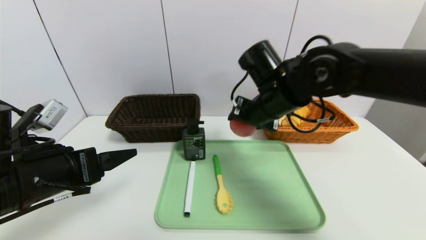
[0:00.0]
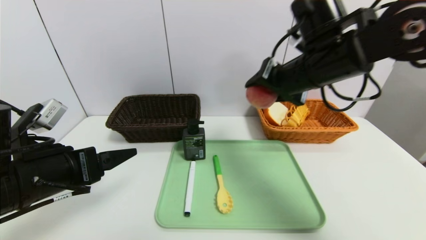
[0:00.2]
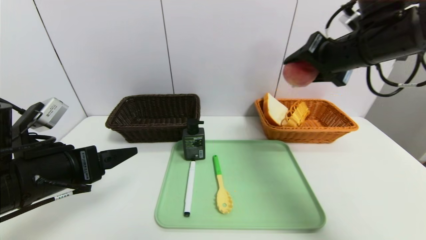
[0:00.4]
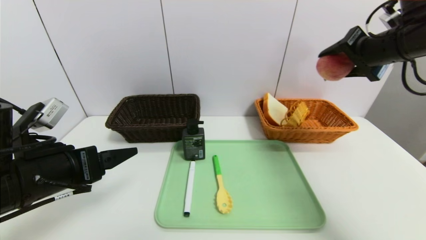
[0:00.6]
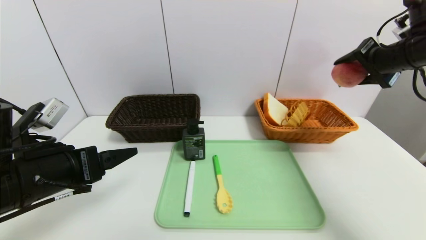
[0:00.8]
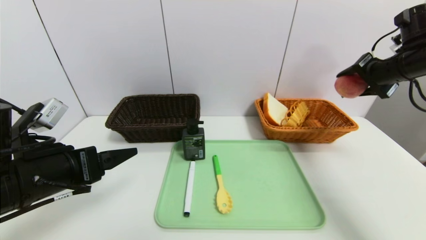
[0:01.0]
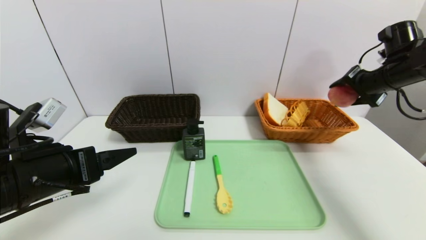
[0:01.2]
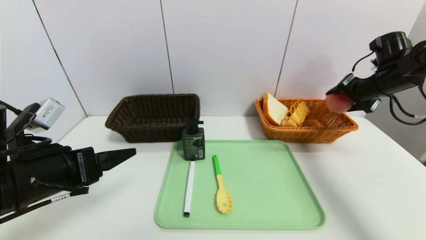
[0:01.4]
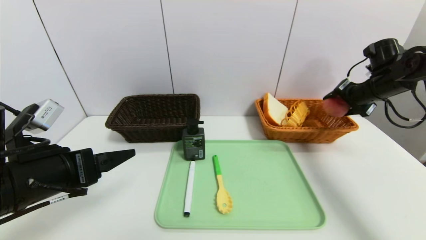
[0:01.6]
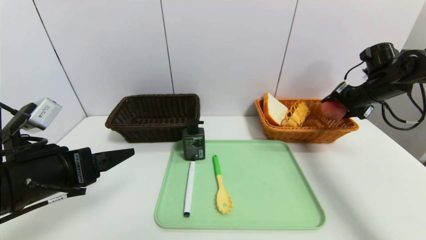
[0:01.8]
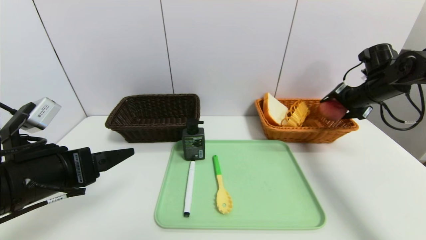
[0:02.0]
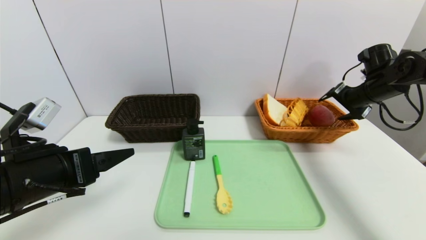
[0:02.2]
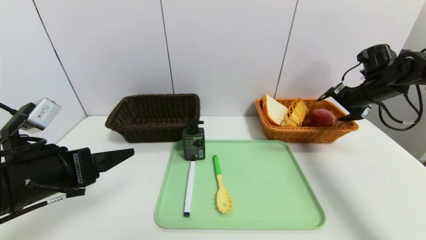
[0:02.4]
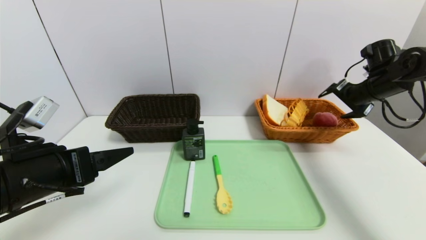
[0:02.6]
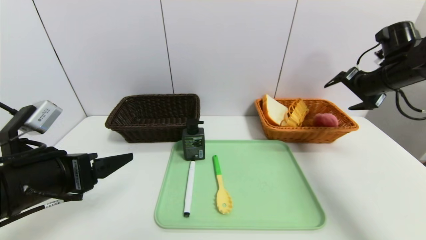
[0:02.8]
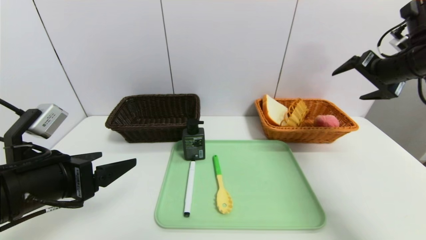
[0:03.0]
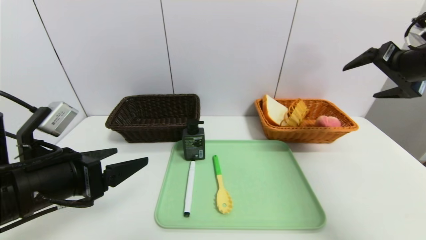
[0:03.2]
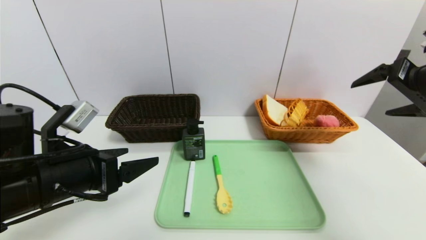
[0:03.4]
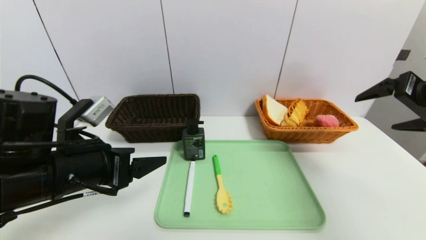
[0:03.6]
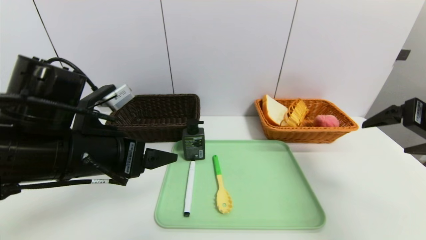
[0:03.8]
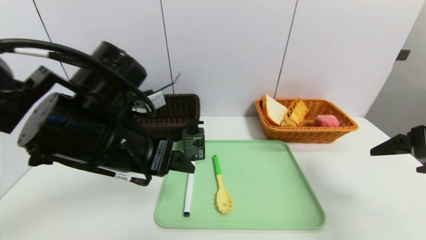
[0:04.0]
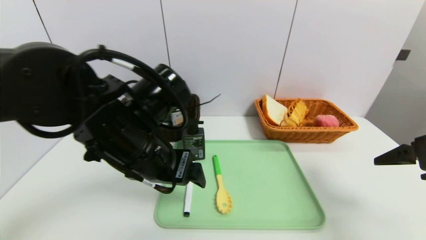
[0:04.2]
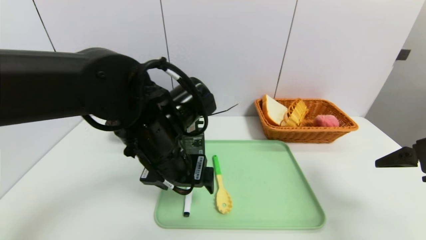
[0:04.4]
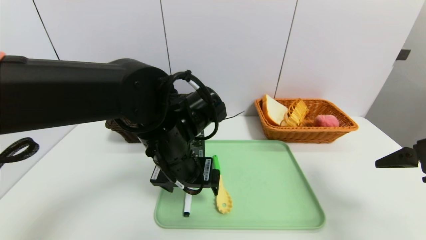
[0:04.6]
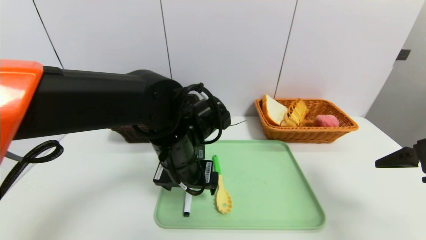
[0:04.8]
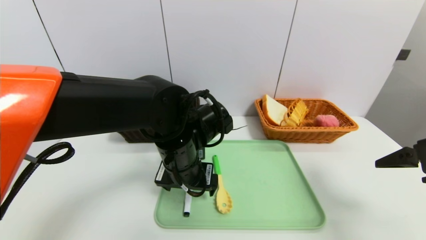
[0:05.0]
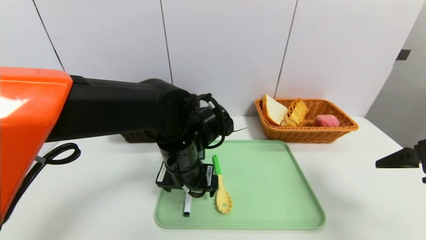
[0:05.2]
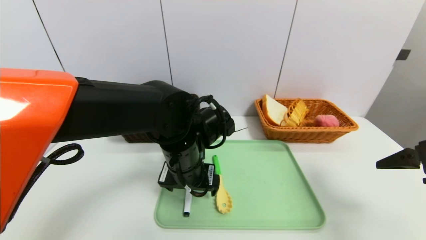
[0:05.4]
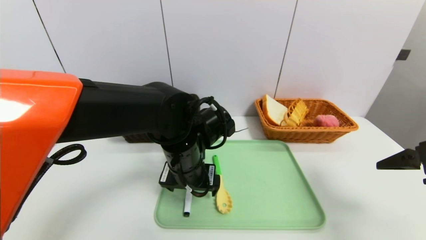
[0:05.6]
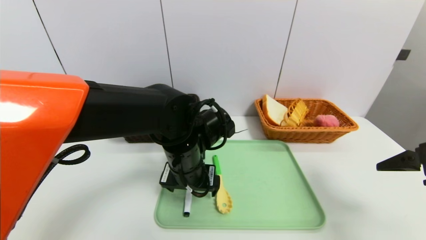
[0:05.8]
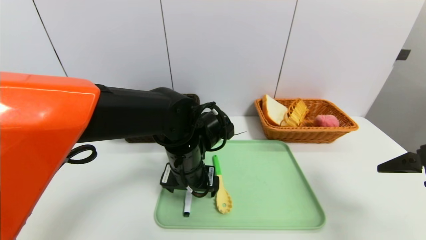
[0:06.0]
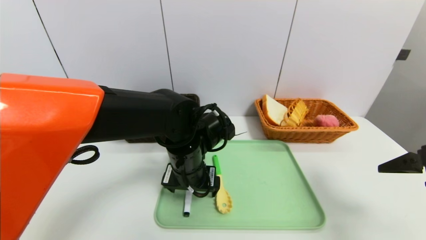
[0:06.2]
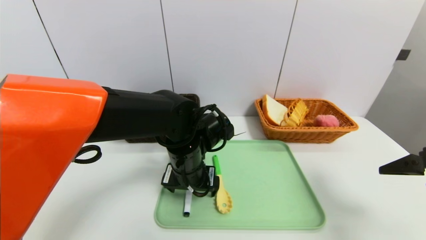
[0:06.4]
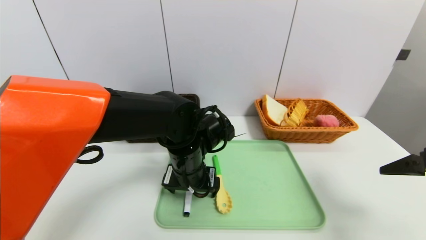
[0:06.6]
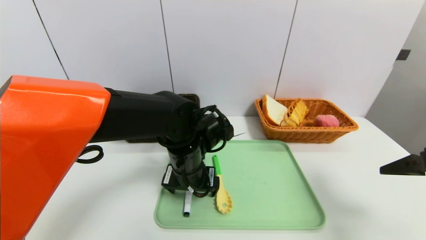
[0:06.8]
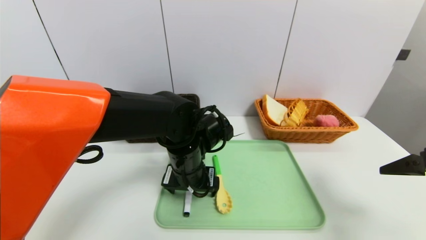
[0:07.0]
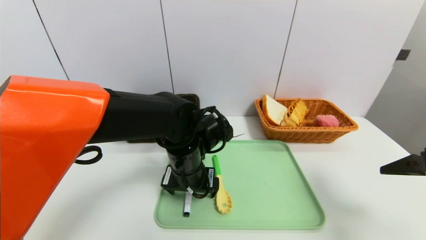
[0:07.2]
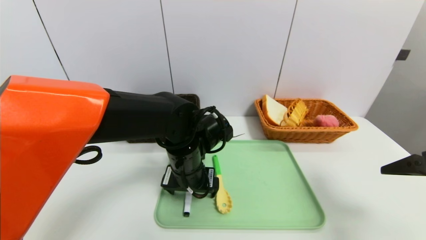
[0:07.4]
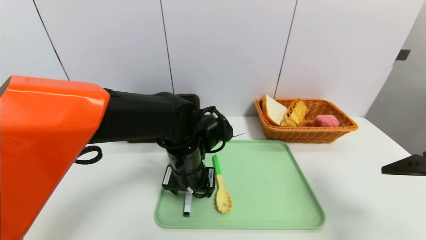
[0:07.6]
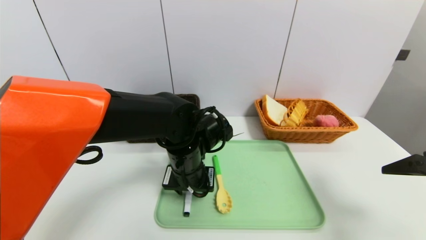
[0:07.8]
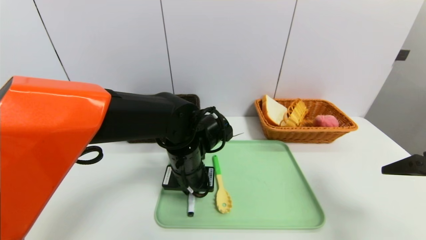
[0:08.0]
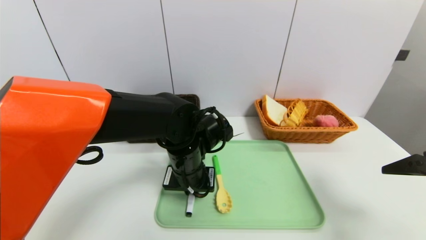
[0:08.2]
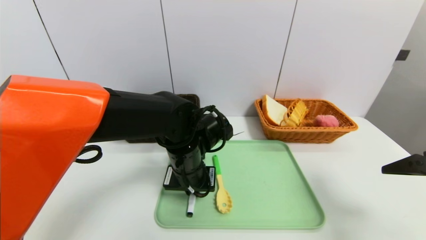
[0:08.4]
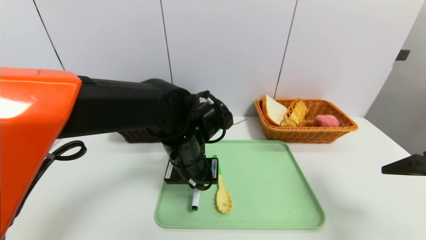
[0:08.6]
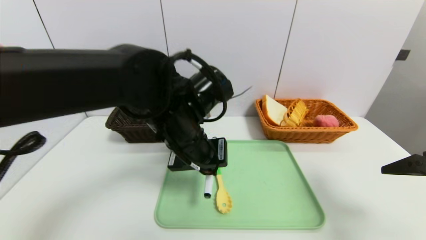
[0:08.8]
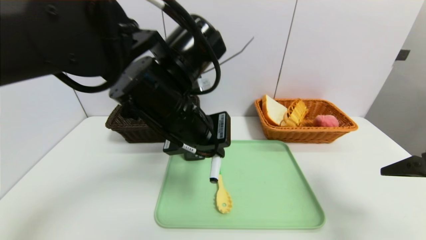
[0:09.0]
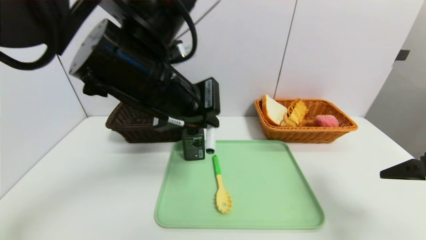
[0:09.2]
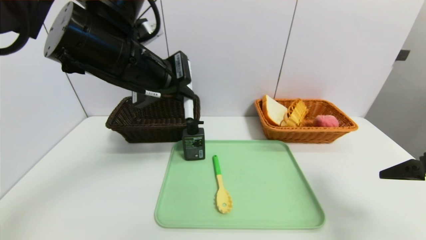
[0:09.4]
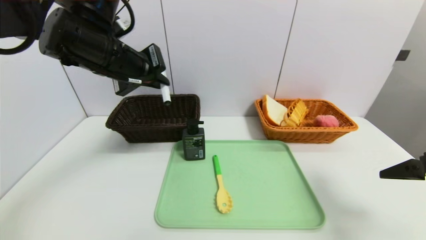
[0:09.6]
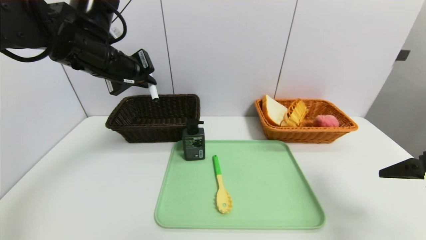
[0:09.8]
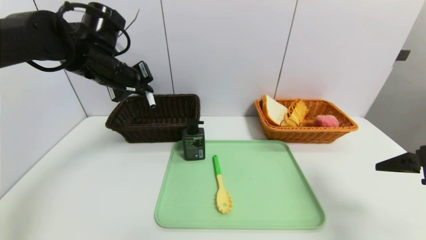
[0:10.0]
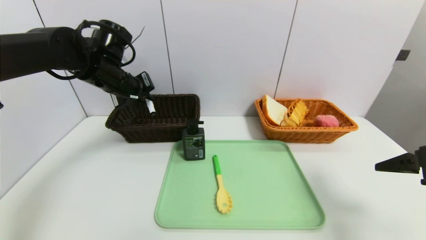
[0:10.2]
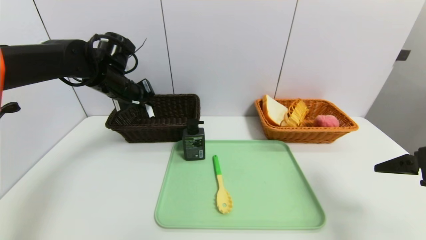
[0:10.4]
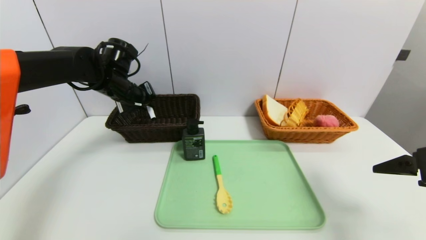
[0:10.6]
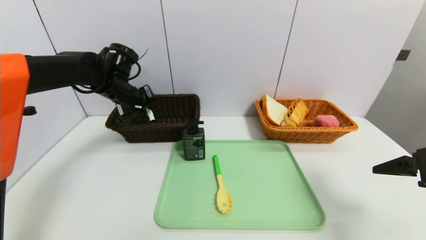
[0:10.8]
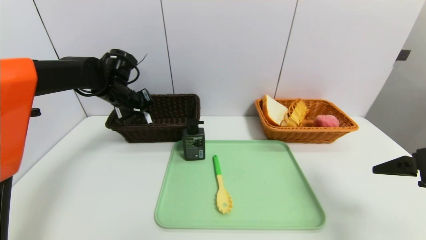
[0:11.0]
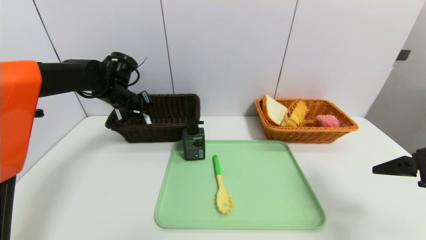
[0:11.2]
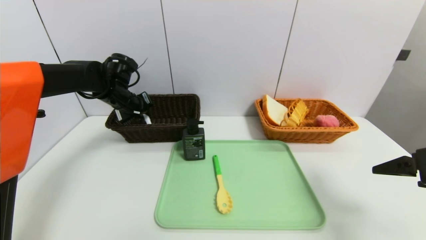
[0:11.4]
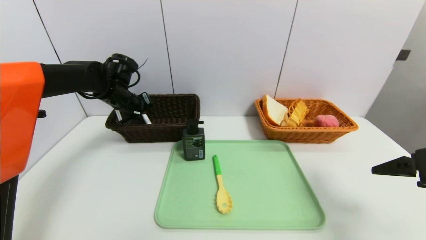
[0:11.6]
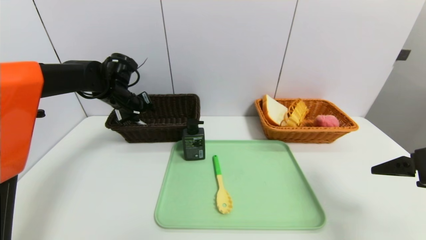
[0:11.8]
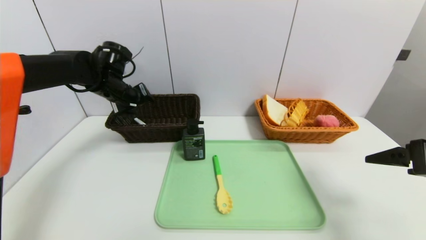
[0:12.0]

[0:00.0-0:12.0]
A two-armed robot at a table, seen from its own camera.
Task of the whole recording: place the food in the right basket with the right gripper, and place the non food items in the left basket with the left gripper.
Step, 0:00.0 to 0:02.6: Grasp the peach and put it in the right basket.
Step, 0:02.8 to 0:11.8: Grasp the black marker and put it in the left basket.
0:00.0 to 0:01.6: The right gripper heads to the right, covering about 30 cm.
0:01.6 to 0:03.0: The right gripper moves upward and backward, roughly 10 cm.
0:03.0 to 0:04.4: The left gripper heads to the right and forward, covering approximately 20 cm. Meanwhile the right gripper is displaced backward by roughly 15 cm.
0:04.4 to 0:06.0: The left gripper heads downward, covering approximately 5 cm.
0:06.0 to 0:07.6: Both grippers stay about where they are.
0:07.6 to 0:09.0: The left gripper is displaced upward by approximately 15 cm, and closes its fingers.
0:09.0 to 0:10.4: The left gripper is displaced forward and to the left by roughly 25 cm.
0:10.4 to 0:12.0: The left gripper opens.

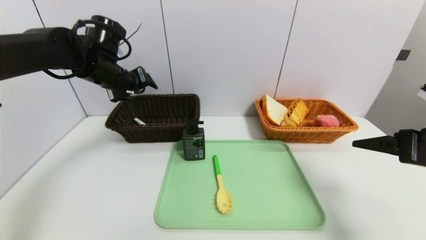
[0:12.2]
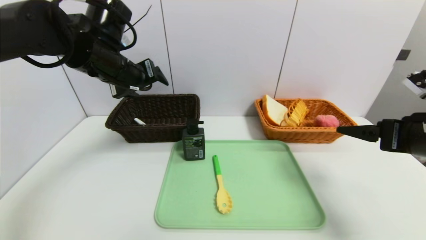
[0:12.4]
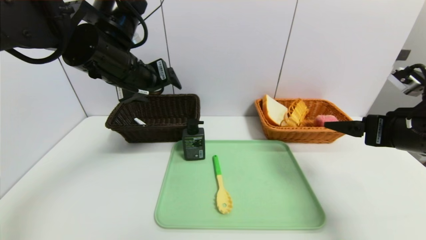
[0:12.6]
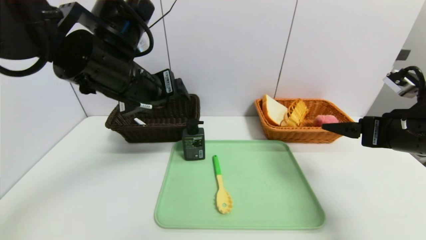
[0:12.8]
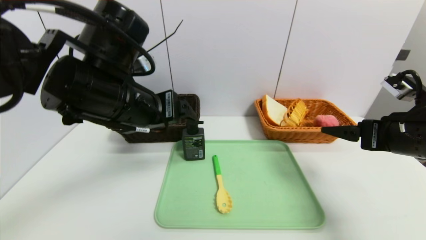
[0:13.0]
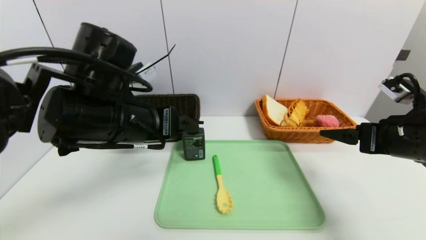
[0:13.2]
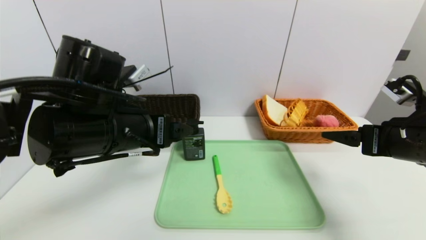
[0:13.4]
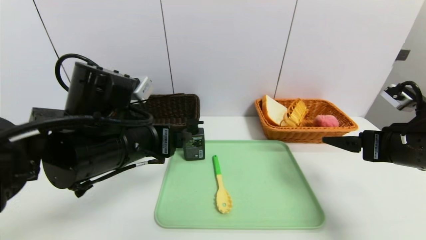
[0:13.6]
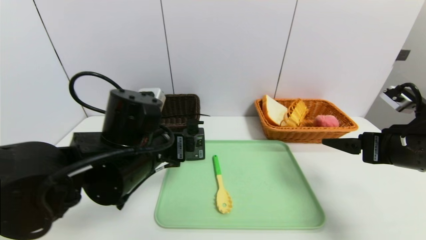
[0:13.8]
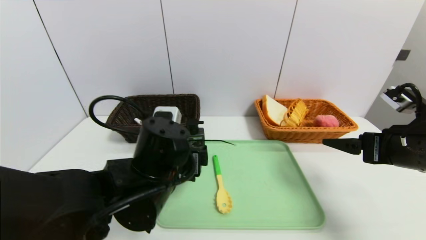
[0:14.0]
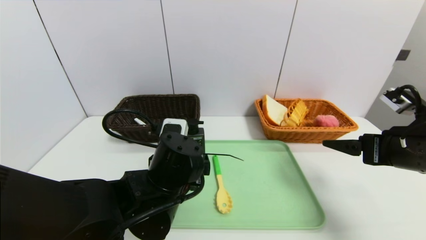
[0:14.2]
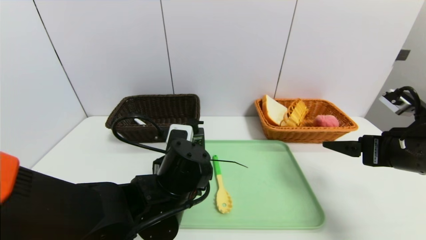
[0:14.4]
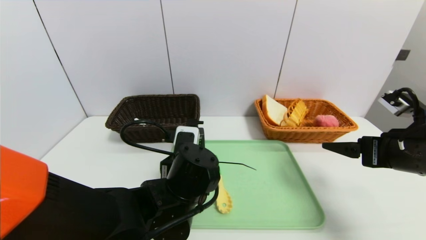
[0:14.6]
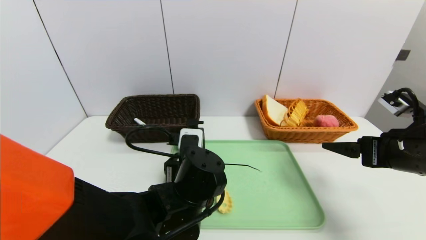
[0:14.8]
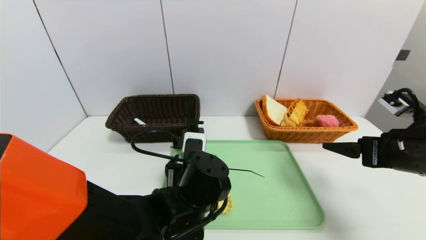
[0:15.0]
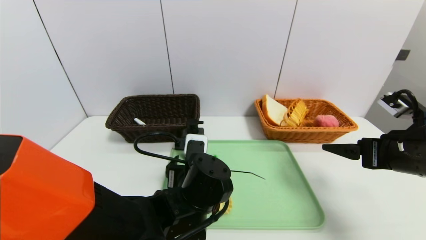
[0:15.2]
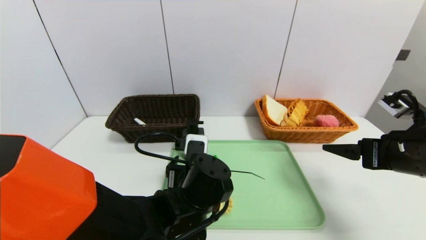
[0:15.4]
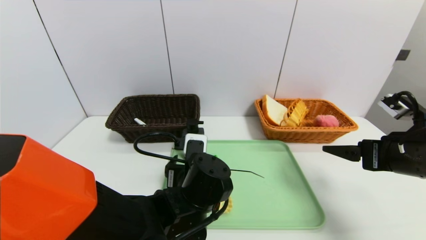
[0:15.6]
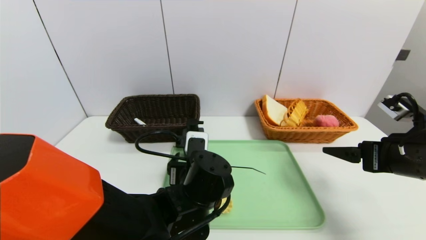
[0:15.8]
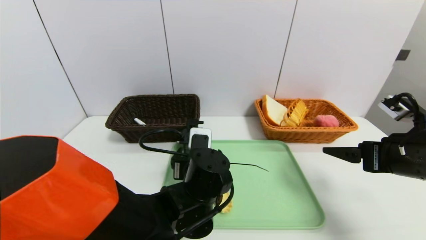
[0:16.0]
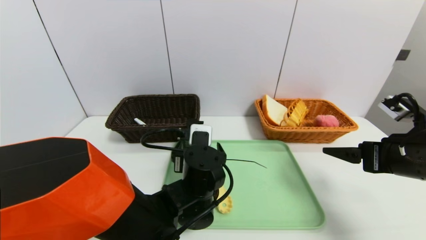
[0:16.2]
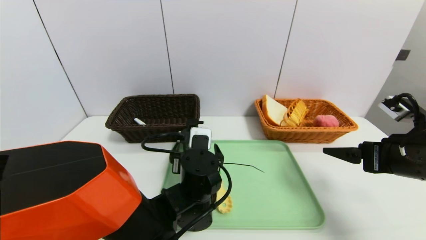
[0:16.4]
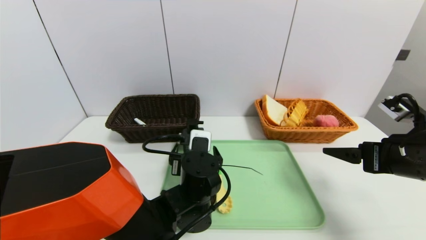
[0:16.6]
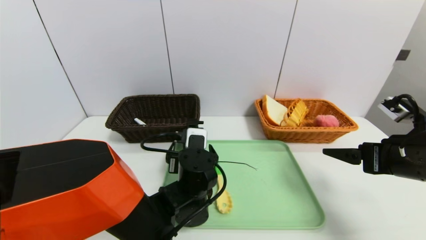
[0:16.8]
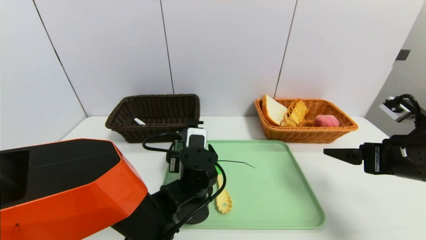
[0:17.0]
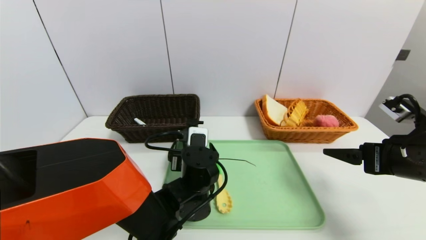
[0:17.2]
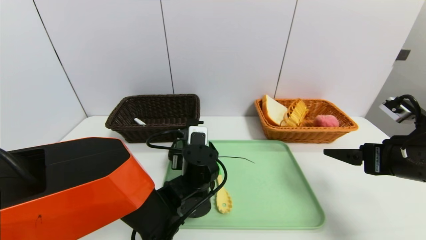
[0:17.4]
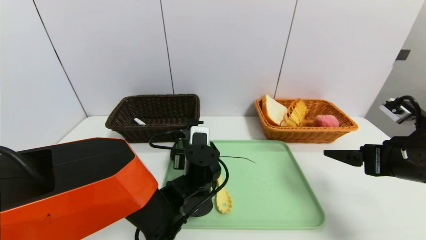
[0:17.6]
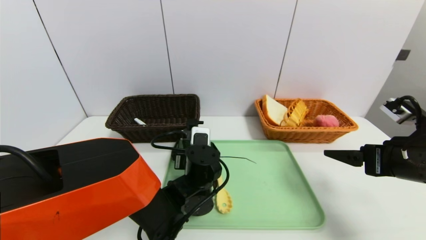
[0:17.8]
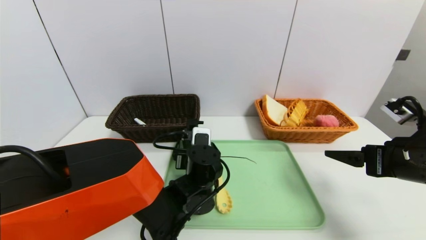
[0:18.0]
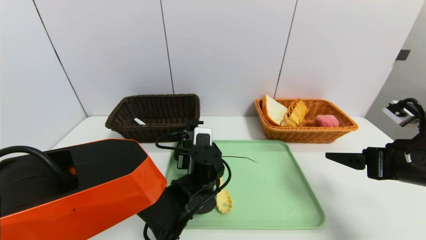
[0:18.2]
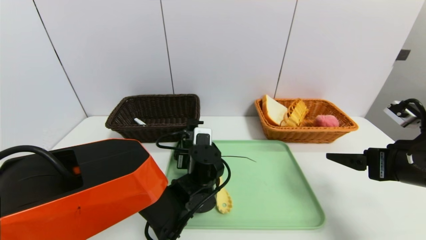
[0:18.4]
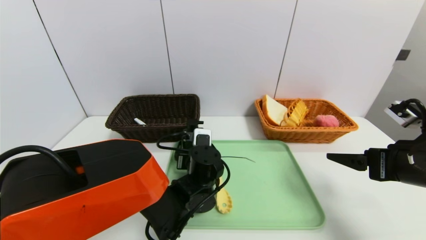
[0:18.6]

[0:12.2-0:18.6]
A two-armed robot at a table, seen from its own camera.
Task of the whole recording: place the food in the right basket with the right gripper, and place the non food items in the left basket with the left gripper.
0:12.2 to 0:13.8: The left gripper goes some 20 cm backward, to the right and downward.
0:13.8 to 0:15.4: The left gripper goes approximately 10 cm downward and to the right.
0:15.4 to 0:17.0: The left gripper changes place by roughly 5 cm.
0:17.0 to 0:18.6: There are only small adjustments of the grippers.
